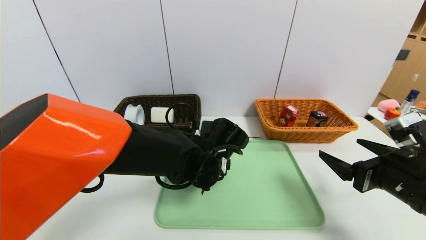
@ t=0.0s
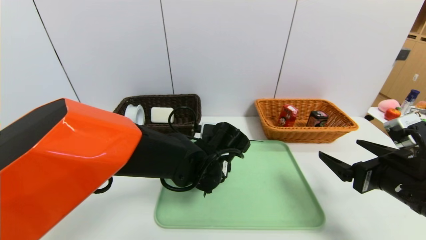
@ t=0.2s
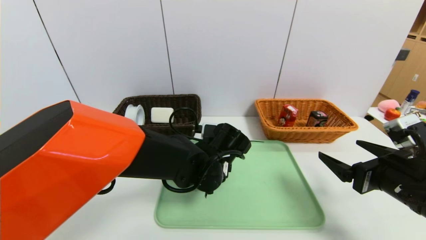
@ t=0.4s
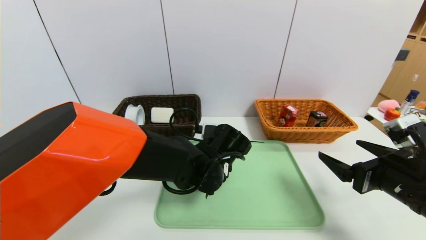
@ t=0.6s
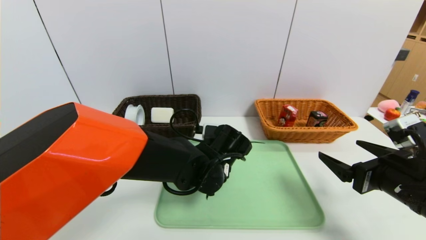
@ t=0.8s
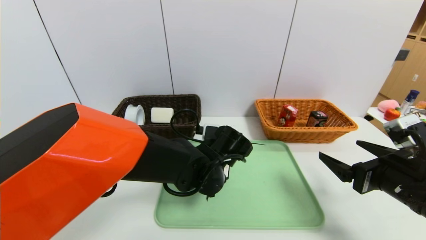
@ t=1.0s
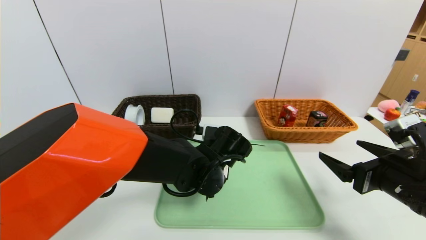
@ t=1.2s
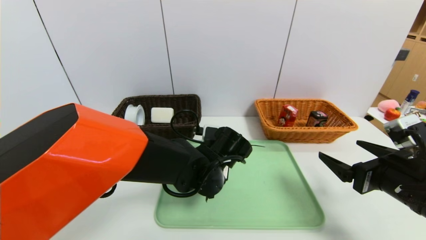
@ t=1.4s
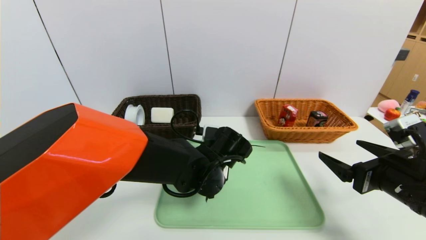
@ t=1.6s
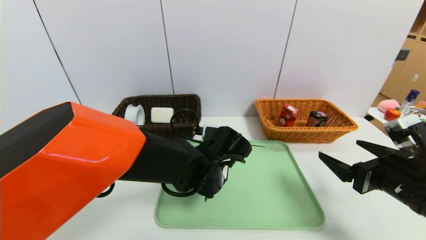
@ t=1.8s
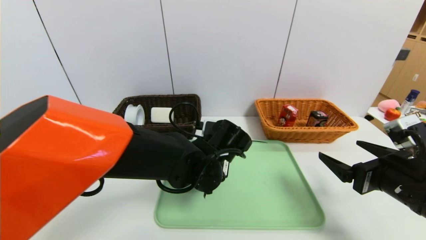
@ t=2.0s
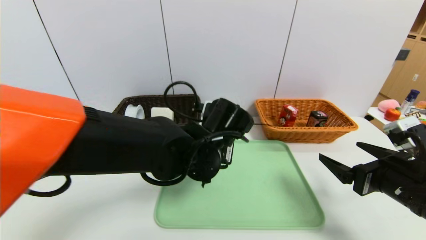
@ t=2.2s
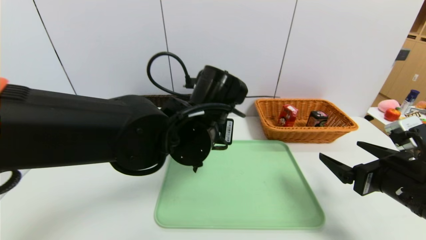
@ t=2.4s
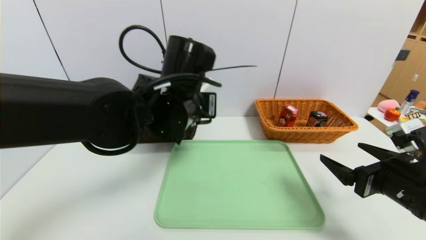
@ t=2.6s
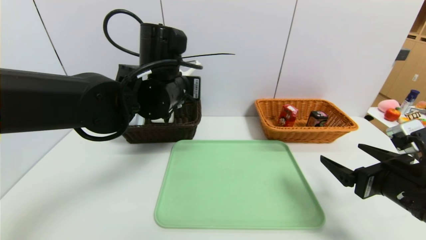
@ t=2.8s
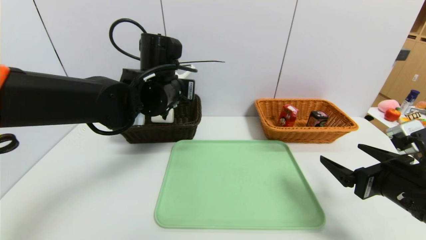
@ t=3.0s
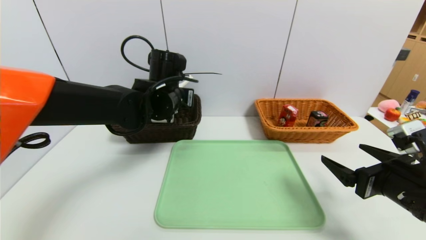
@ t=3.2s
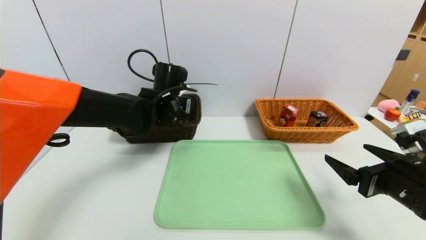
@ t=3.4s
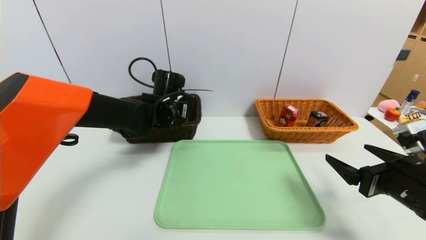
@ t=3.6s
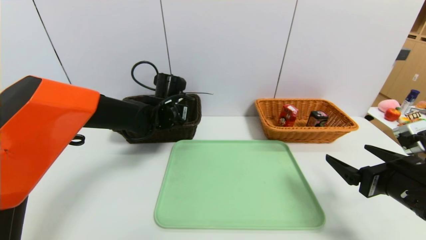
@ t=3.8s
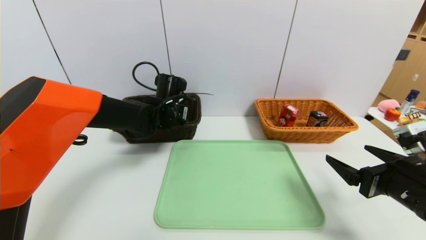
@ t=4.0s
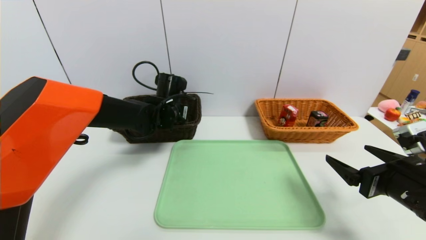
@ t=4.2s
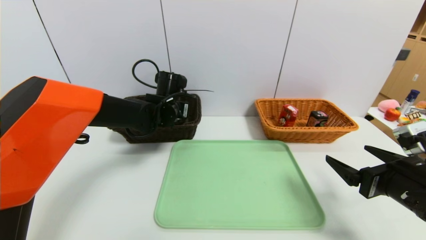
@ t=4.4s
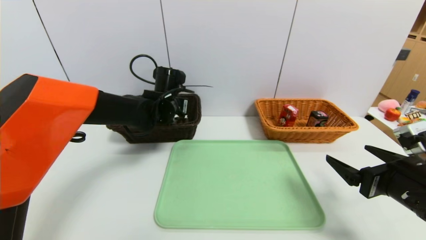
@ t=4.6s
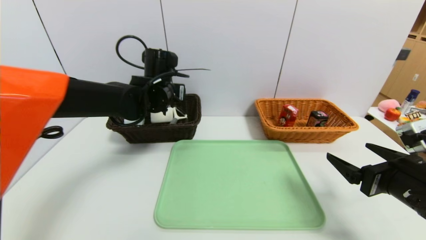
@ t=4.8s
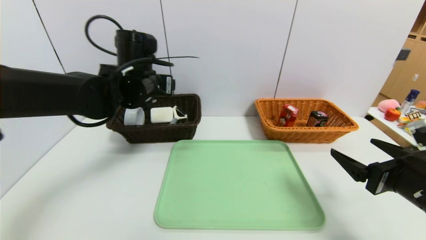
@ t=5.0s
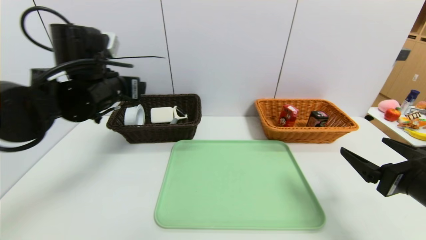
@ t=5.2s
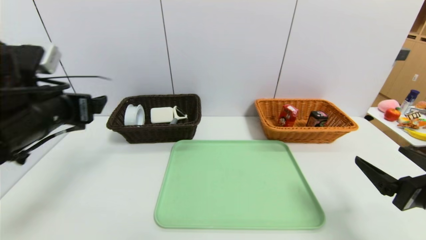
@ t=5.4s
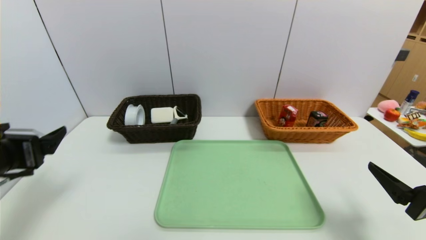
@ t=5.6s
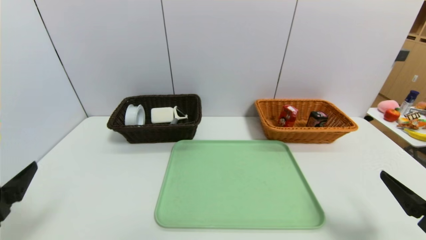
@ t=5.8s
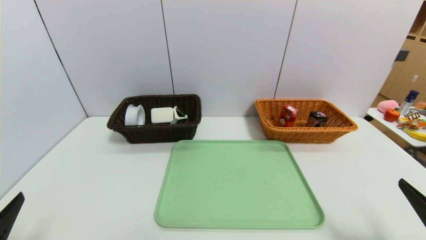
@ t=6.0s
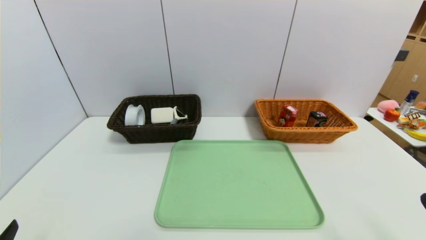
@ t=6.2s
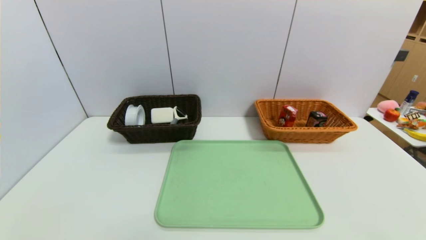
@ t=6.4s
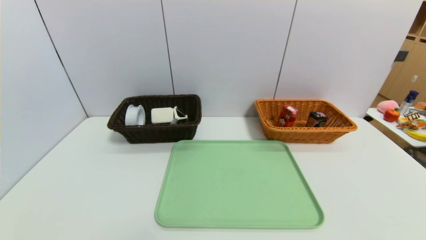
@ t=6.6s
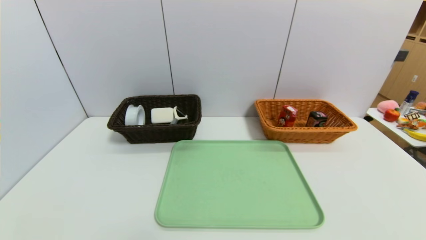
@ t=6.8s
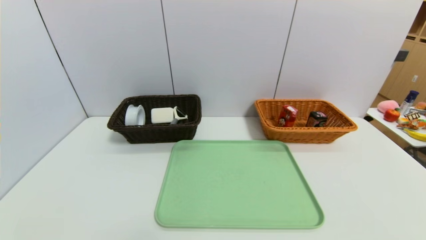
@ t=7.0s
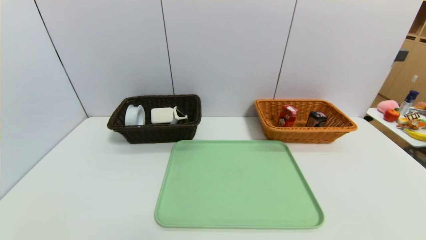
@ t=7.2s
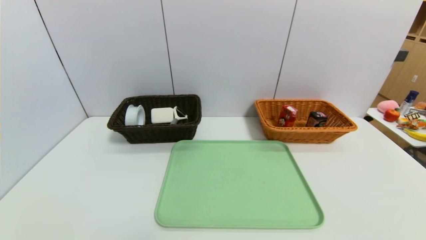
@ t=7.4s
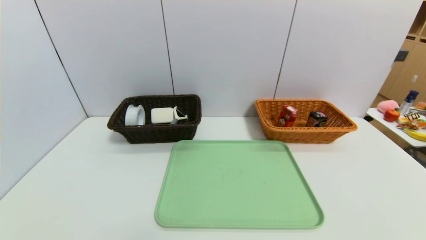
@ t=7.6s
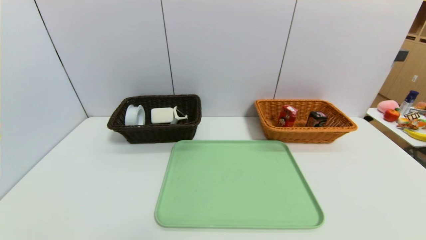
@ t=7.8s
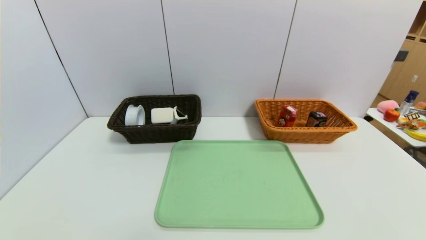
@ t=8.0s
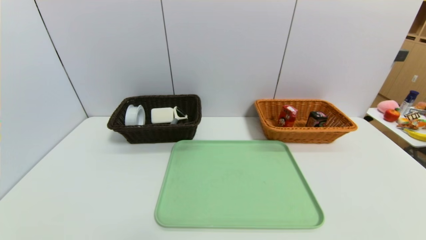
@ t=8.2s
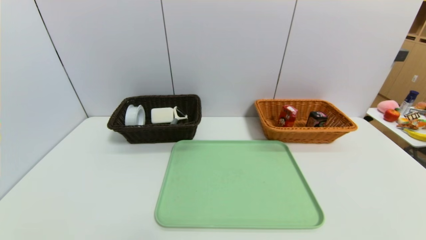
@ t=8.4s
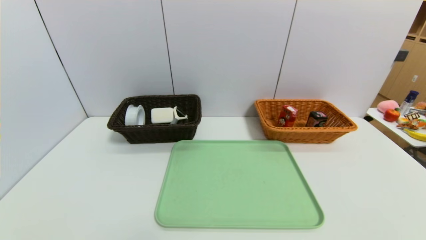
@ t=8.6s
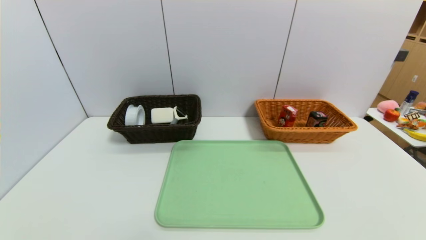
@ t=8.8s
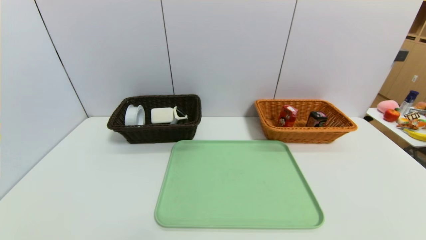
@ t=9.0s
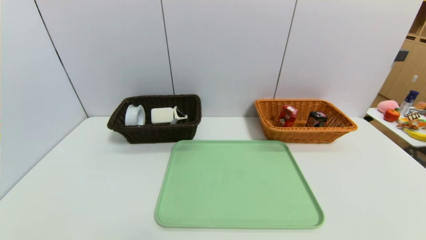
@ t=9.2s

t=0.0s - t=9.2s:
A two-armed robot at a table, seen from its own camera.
Task of the whole recording: place the food in the right basket with the right gripper, and place the non food items in the left basket with the left gripper.
Step, t=0.0s - t=4.2s: Grasp the peeler and put it in the left basket.
t=0.0s - t=1.6s: The left gripper closes up.
t=1.6s - t=3.0s: The left gripper shifts some 20 cm upward, to the left and forward.
t=3.0s - t=4.6s: The left gripper goes about 10 cm forward and downward, and opens.
t=4.6s - t=6.2s: The left gripper is displaced backward and to the left by roughly 50 cm. The right gripper heads backward, covering approximately 15 cm.
t=7.6s - t=9.2s: Neither gripper changes place.
